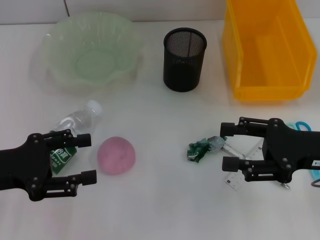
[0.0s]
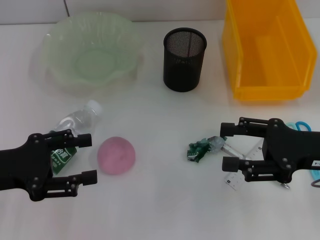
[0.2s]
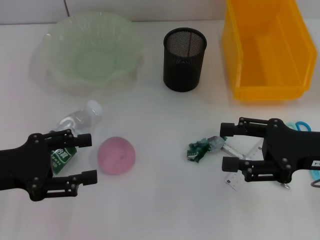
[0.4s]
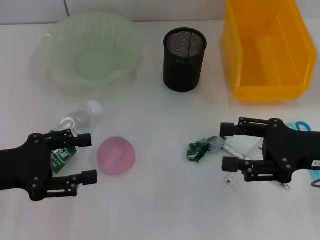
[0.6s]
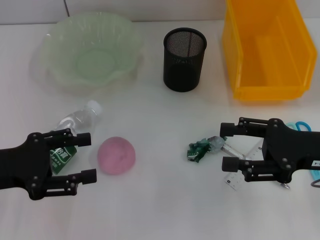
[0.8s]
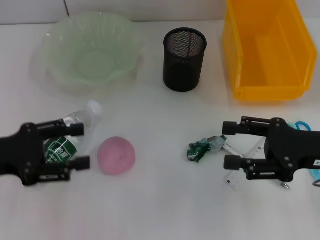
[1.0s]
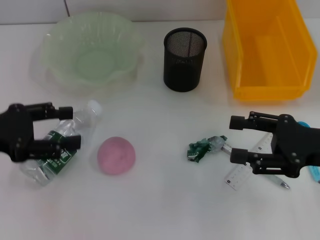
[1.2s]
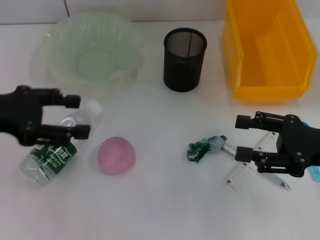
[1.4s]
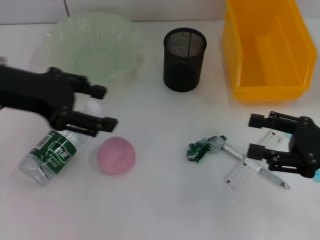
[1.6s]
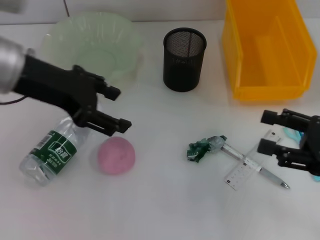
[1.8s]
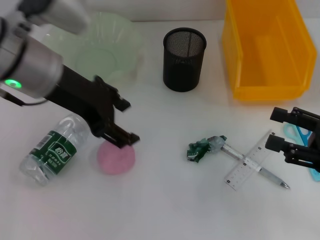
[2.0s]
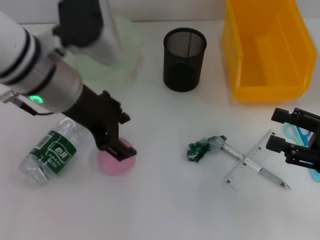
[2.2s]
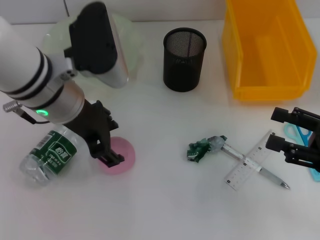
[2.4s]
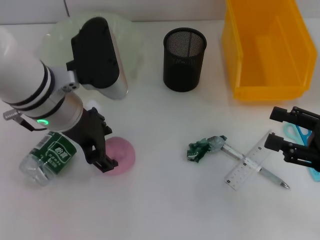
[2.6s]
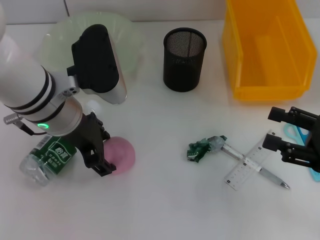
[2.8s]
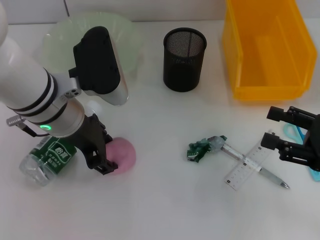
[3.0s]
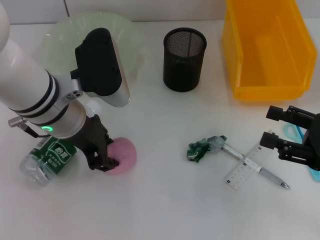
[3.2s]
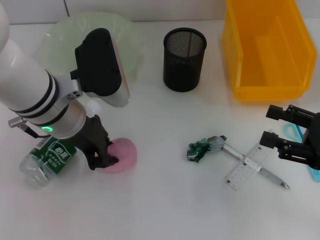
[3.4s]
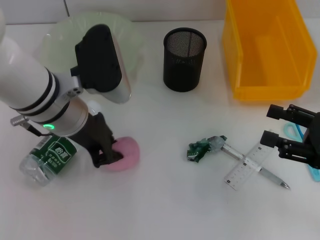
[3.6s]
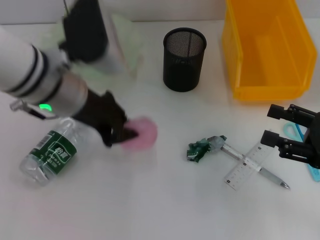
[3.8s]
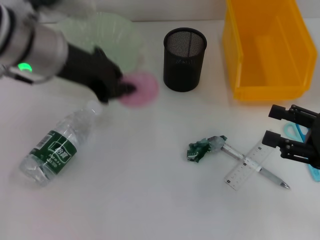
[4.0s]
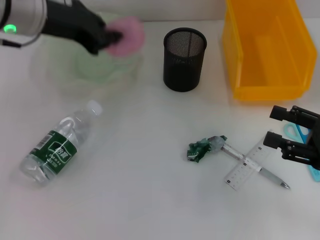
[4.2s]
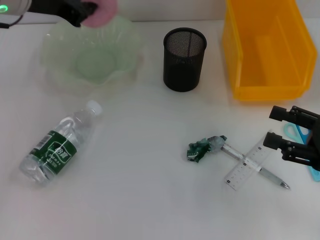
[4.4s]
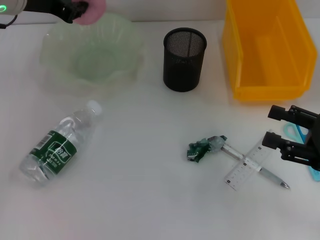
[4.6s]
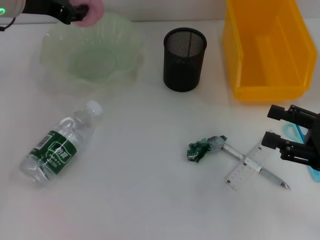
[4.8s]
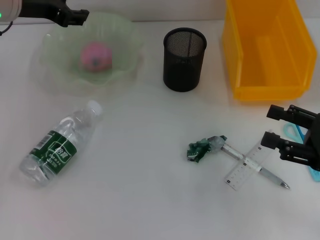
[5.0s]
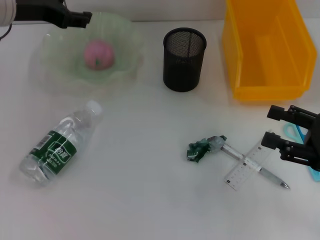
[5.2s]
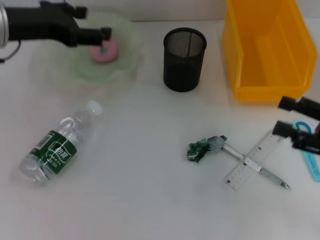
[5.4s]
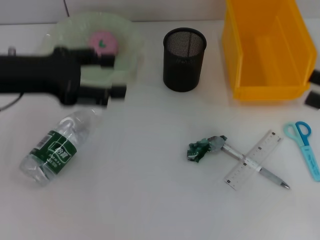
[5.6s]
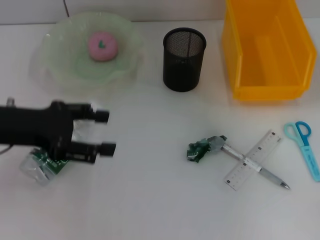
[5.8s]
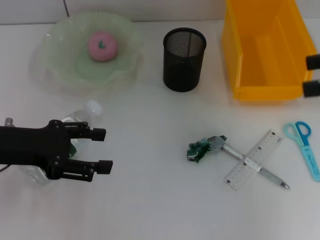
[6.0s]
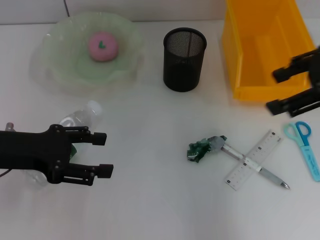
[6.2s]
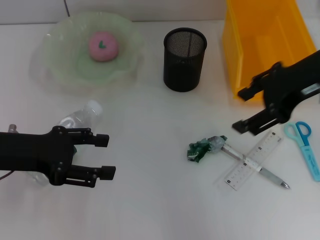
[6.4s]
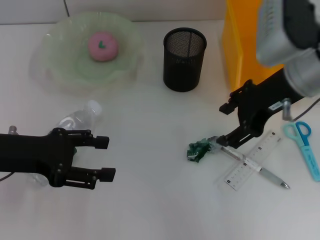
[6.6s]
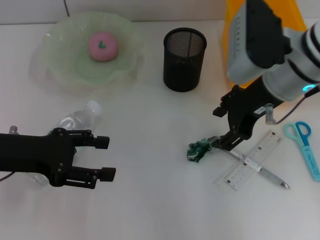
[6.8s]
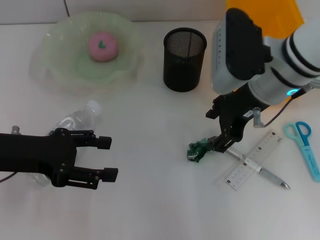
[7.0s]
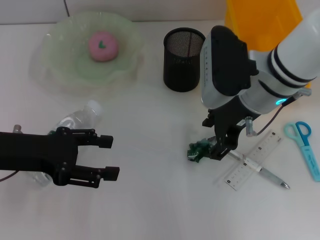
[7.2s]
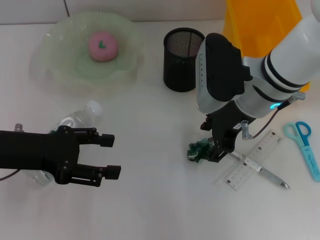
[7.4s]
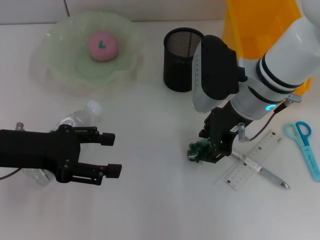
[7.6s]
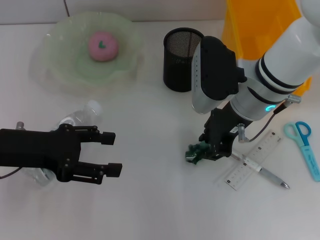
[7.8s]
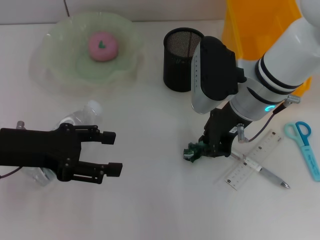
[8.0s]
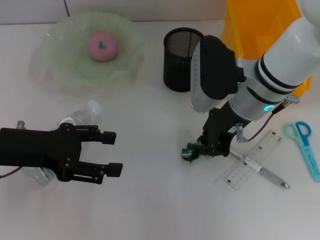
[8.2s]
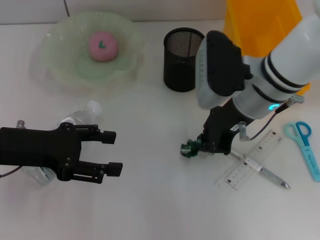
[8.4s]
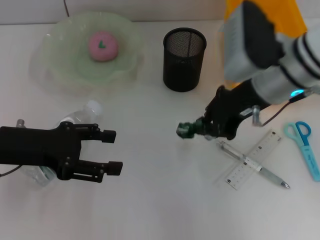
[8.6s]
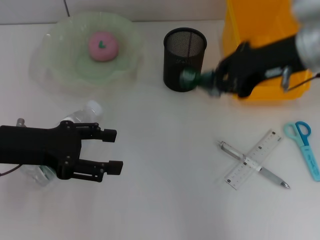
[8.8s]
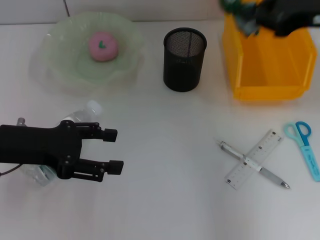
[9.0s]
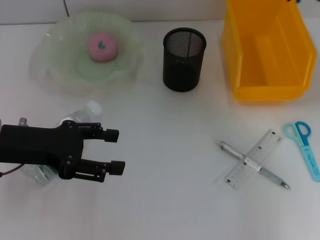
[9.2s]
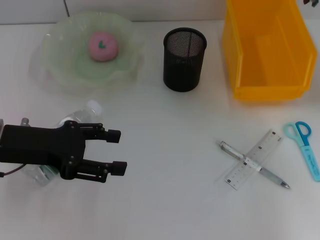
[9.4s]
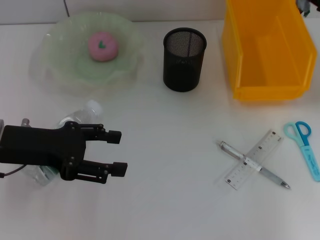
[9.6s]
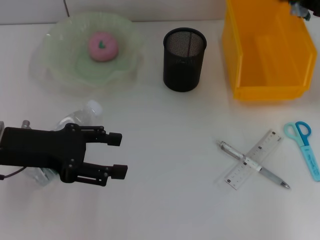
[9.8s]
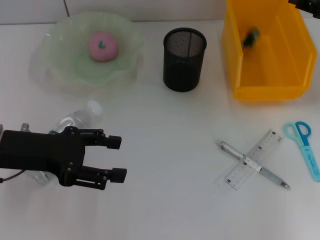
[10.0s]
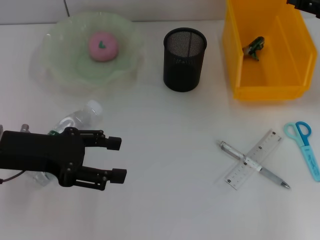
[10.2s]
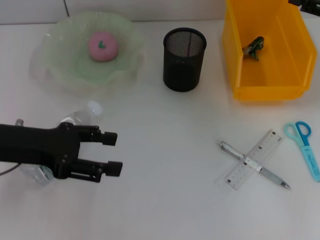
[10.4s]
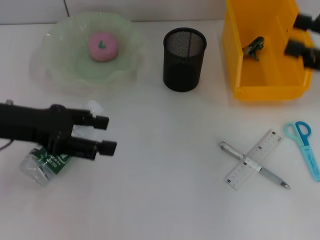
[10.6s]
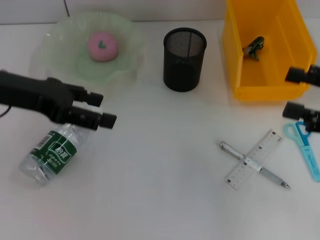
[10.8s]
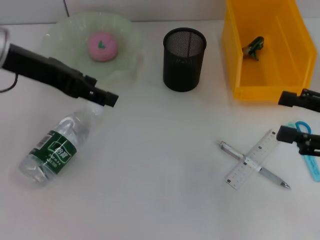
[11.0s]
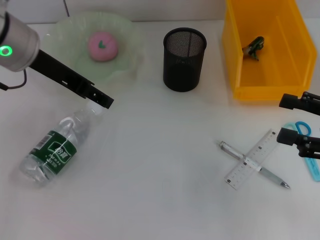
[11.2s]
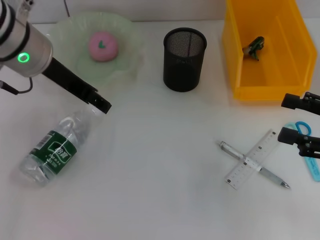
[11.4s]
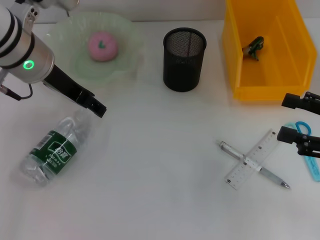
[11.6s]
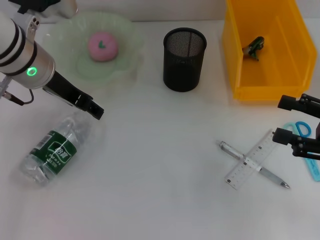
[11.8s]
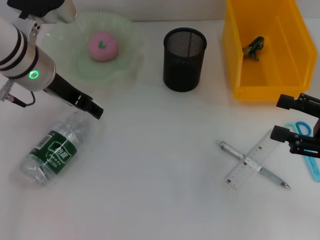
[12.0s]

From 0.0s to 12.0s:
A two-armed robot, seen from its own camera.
Step, from 0.0s to 3.4s: Grab the peach with the left hand.
Step, from 3.6s to 5.0s: Place the peach into the fruit bowl with the left hand.
Step, from 5.2s to 8.0s: Grab the plastic with the right hand.
Step, from 8.2s to 10.0s: Place the plastic into the trash can with the right hand.
From 0.0s to 1.6s: The left gripper heads upward, forward and to the right, covering roughly 15 cm.
From 1.6s to 3.0s: The left gripper is displaced to the right and downward by some 10 cm.
From 3.0s to 4.4s: The left gripper travels upward, forward and to the left by roughly 15 cm, and closes its fingers.
From 4.4s to 6.0s: The right gripper travels upward and forward by approximately 15 cm, while the left gripper travels backward, downward and to the left by approximately 20 cm, and opens its fingers.
From 6.0s to 7.6s: The right gripper goes about 25 cm to the left and downward.
From 7.6s to 9.0s: The right gripper shifts roughly 15 cm to the right and upward, and closes.
From 9.0s to 10.4s: The right gripper moves to the right and downward, some 10 cm, and opens.
From 10.4s to 12.0s: The left gripper heads forward and to the right, covering roughly 15 cm. The right gripper travels backward and downward by about 15 cm.

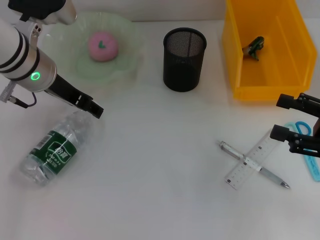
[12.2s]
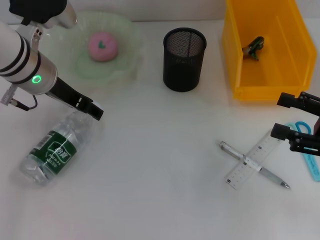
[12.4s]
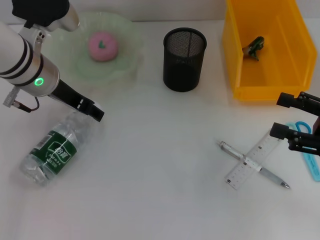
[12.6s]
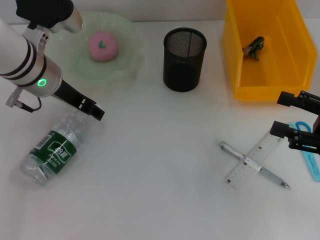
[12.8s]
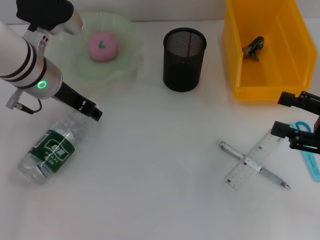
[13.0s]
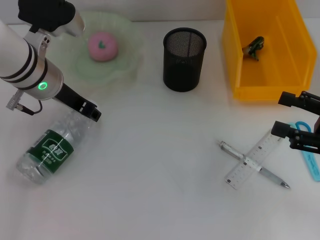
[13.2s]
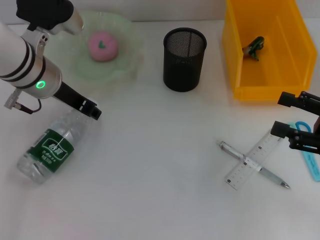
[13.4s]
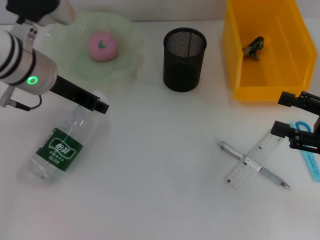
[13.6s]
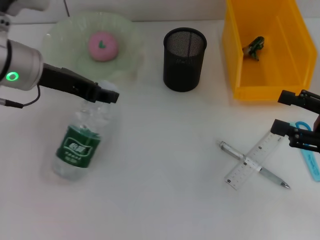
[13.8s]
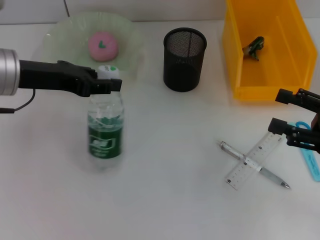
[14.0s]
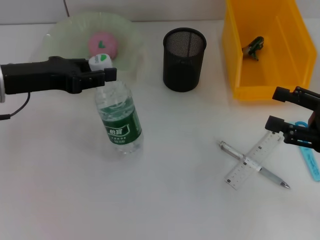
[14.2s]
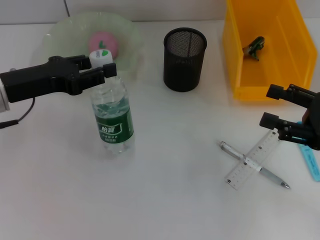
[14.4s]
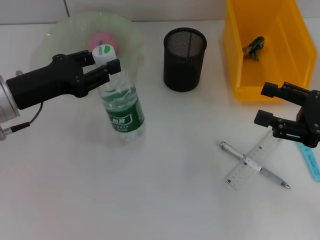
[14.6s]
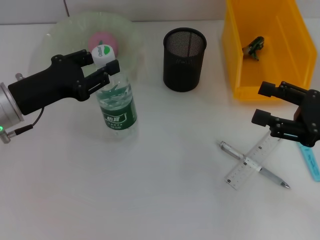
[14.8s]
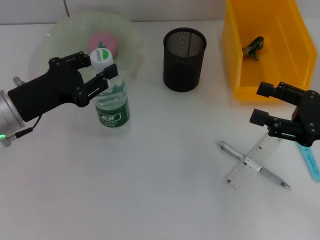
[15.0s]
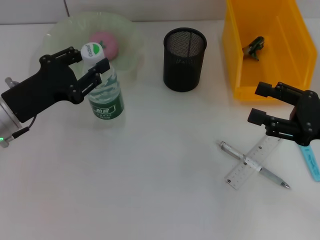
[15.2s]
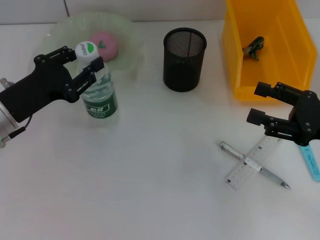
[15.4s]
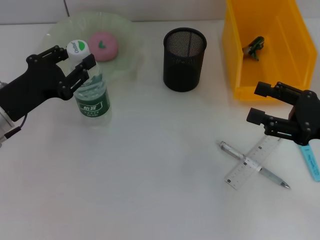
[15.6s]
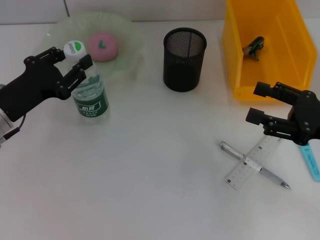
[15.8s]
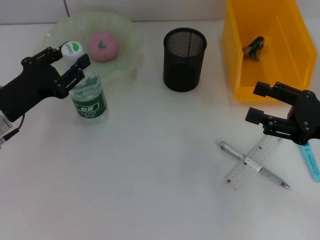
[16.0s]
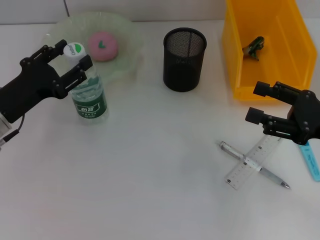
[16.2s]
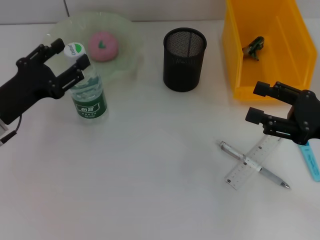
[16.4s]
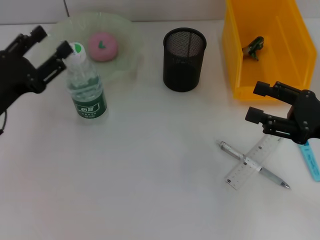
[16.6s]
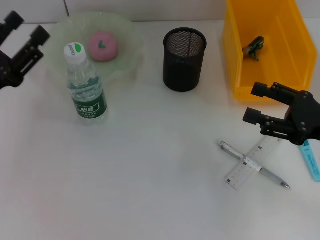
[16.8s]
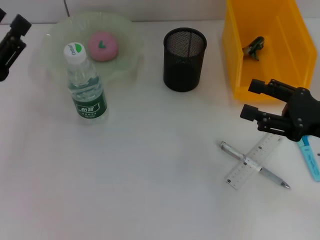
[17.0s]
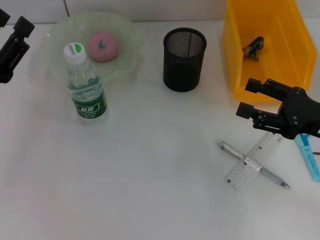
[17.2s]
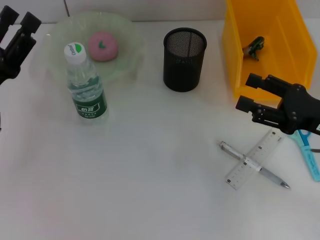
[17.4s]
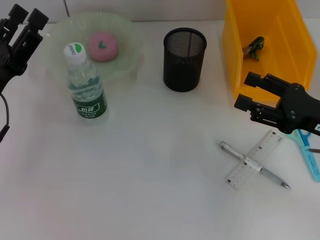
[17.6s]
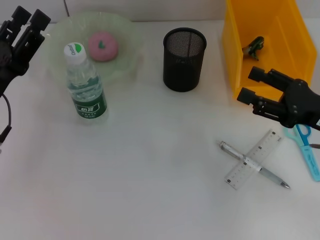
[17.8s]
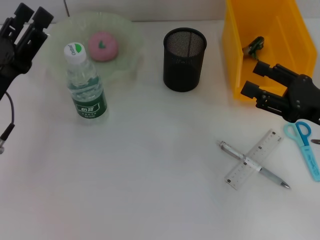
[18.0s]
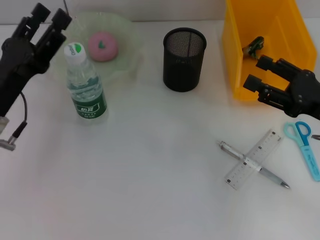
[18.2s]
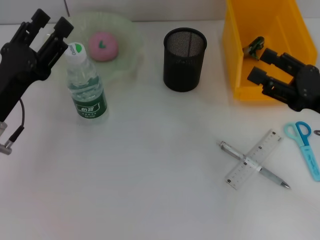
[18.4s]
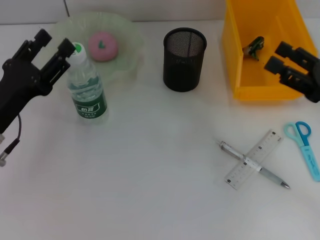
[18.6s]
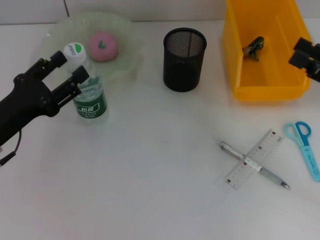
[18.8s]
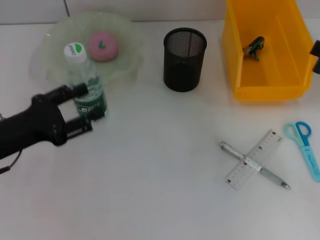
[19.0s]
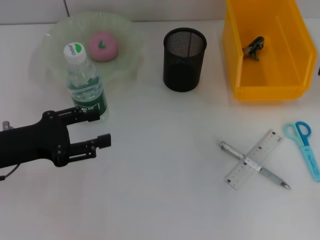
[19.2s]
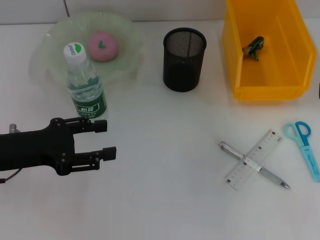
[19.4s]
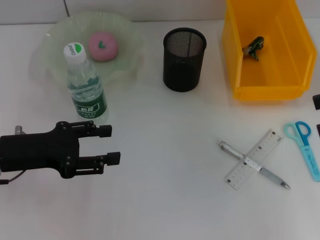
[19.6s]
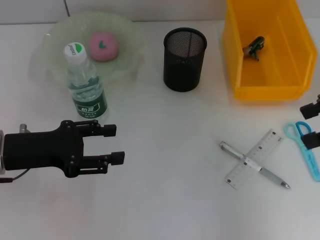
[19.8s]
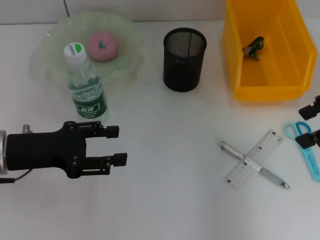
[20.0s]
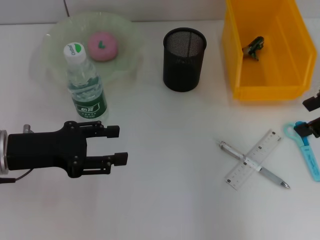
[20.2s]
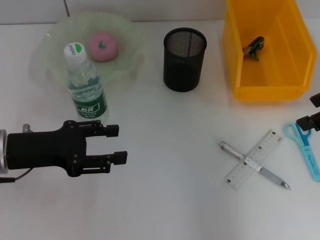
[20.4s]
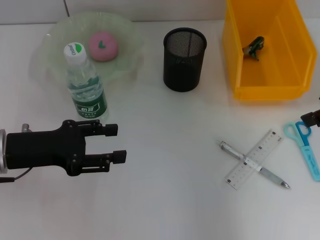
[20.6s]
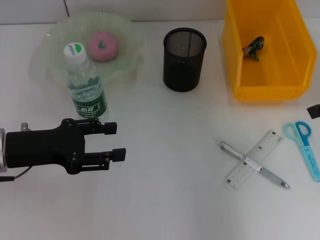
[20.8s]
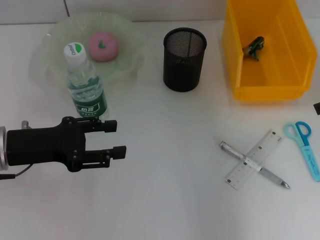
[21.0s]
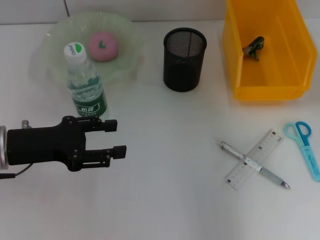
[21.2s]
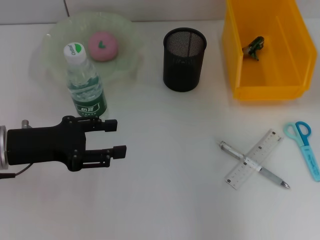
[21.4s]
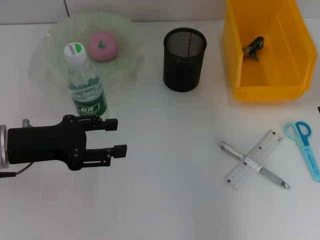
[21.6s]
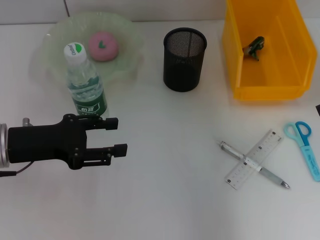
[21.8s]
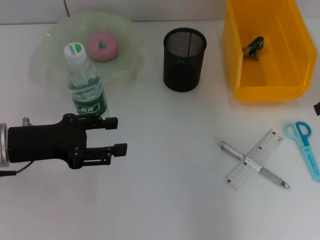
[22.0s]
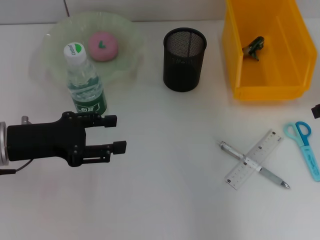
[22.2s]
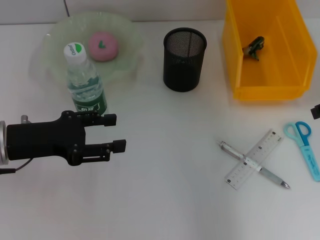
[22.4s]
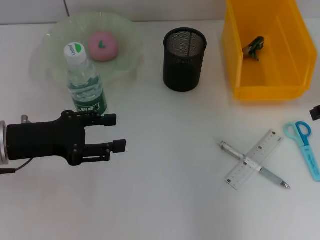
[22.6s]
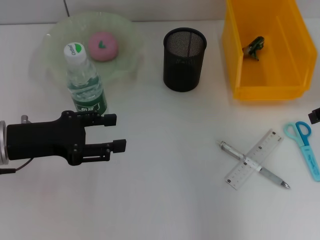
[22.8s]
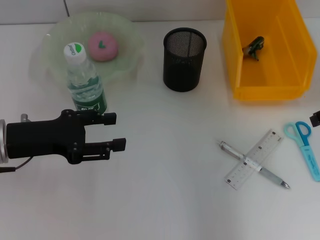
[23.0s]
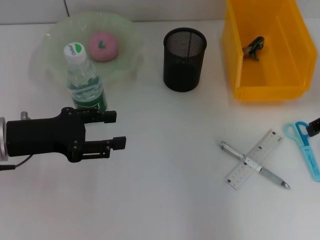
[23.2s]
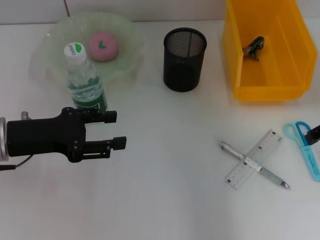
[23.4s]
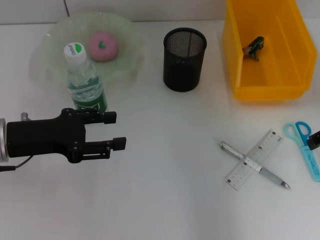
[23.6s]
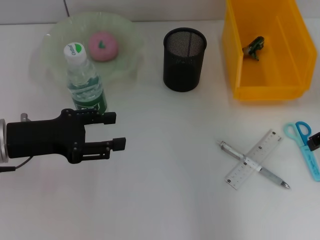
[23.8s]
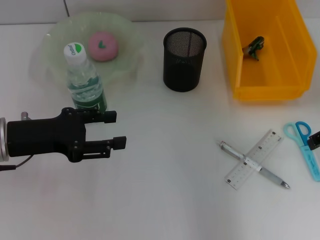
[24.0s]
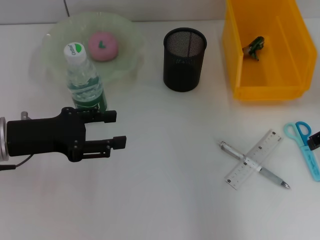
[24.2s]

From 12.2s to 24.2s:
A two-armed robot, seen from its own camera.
Step, from 13.4s to 17.0s: Place the water bottle on the table with the left hand.
From 12.2s to 13.8s: The left gripper closes its fingers.
From 13.8s to 15.2s: The left gripper goes some 10 cm downward, backward and to the left.
From 15.2s to 16.6s: The left gripper opens up.
From 18.2s to 19.8s: The right gripper goes approximately 15 cm upward.
From 21.2s to 24.2s: The grippers make only small movements.
